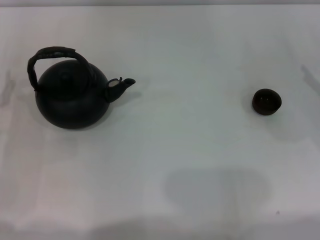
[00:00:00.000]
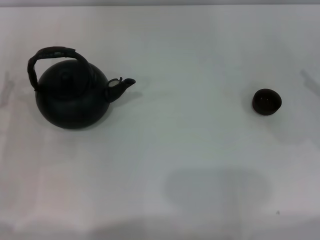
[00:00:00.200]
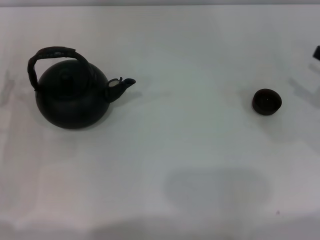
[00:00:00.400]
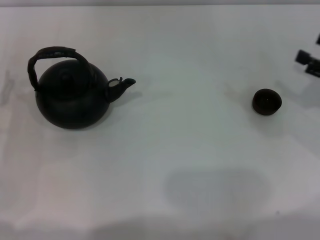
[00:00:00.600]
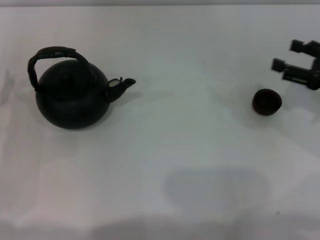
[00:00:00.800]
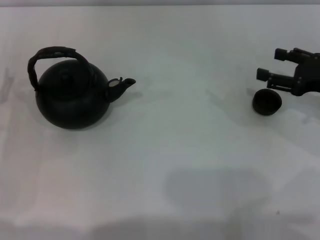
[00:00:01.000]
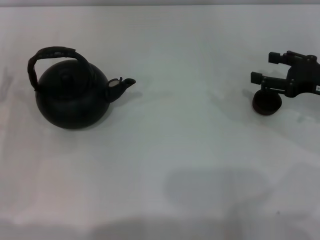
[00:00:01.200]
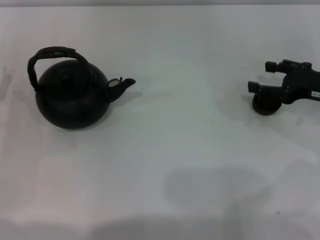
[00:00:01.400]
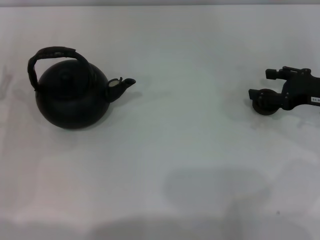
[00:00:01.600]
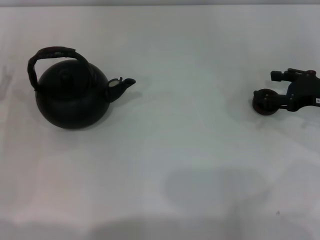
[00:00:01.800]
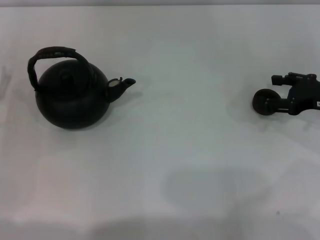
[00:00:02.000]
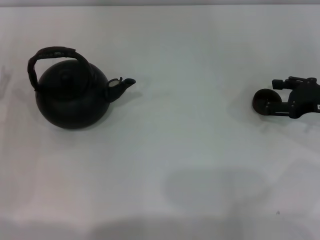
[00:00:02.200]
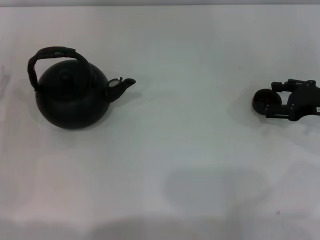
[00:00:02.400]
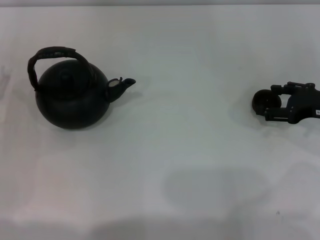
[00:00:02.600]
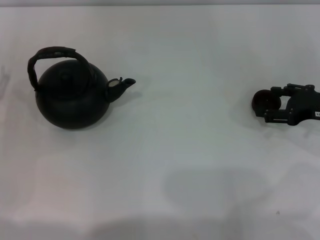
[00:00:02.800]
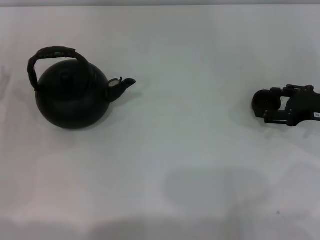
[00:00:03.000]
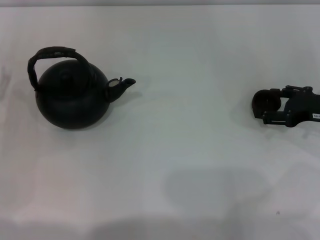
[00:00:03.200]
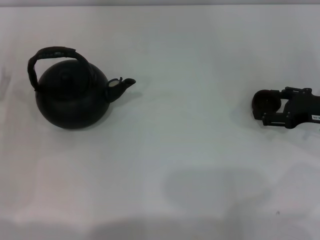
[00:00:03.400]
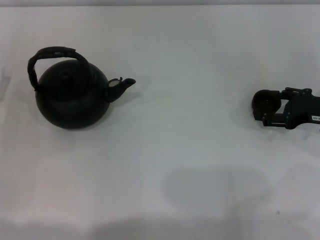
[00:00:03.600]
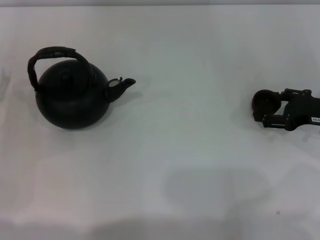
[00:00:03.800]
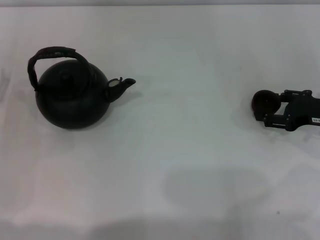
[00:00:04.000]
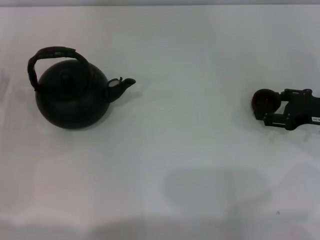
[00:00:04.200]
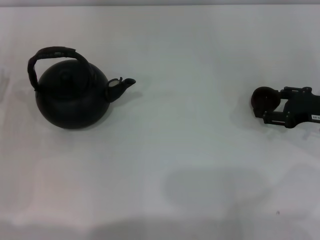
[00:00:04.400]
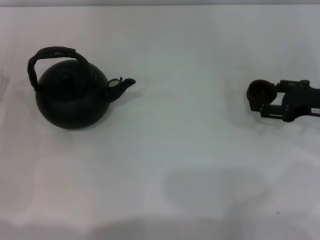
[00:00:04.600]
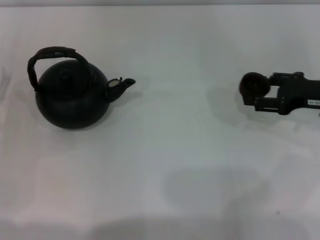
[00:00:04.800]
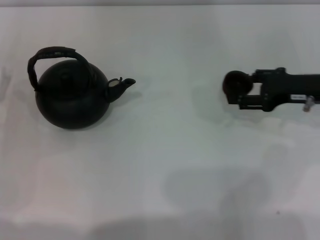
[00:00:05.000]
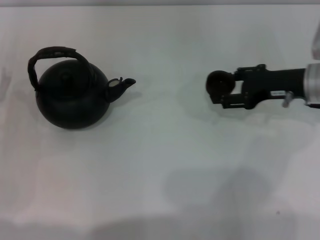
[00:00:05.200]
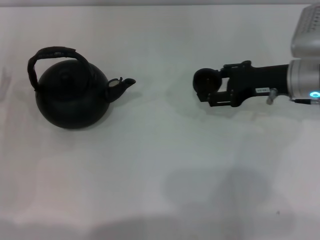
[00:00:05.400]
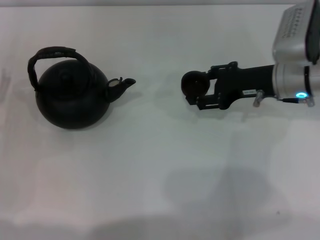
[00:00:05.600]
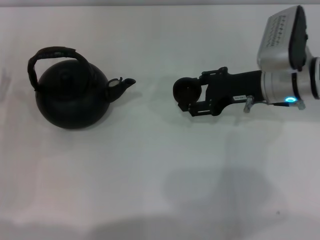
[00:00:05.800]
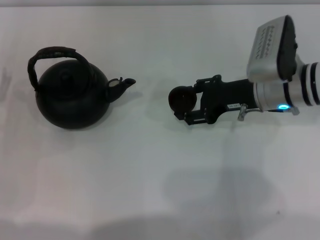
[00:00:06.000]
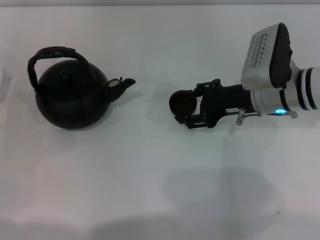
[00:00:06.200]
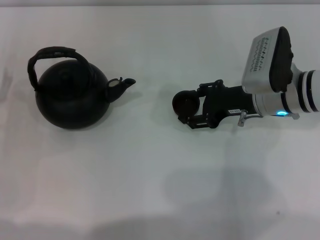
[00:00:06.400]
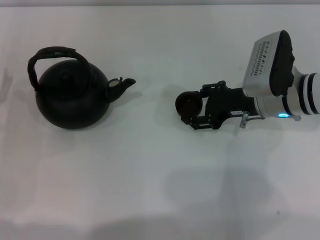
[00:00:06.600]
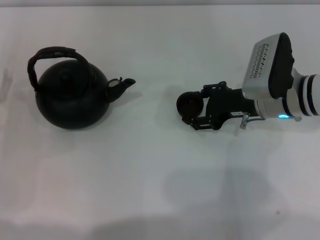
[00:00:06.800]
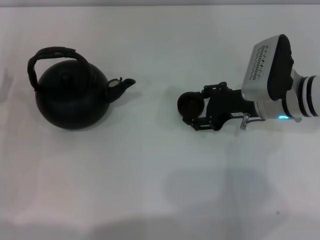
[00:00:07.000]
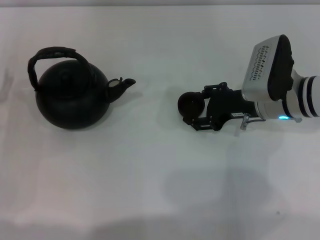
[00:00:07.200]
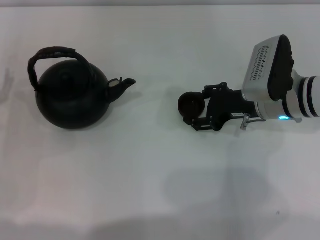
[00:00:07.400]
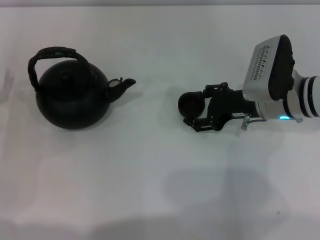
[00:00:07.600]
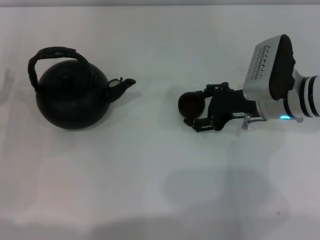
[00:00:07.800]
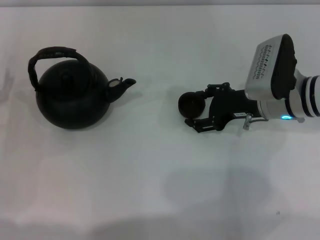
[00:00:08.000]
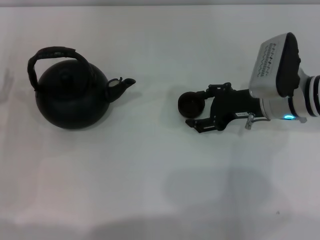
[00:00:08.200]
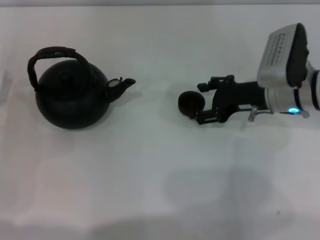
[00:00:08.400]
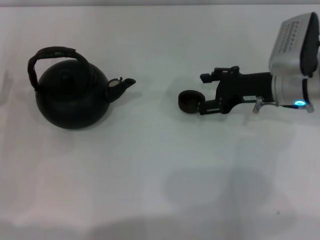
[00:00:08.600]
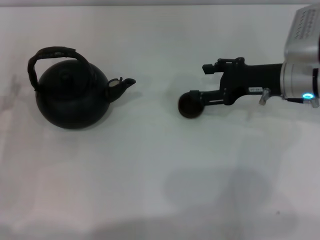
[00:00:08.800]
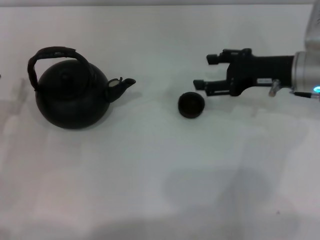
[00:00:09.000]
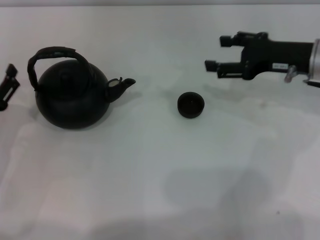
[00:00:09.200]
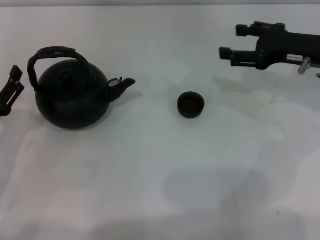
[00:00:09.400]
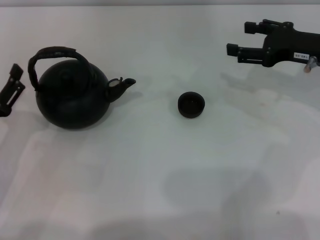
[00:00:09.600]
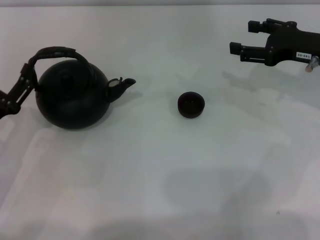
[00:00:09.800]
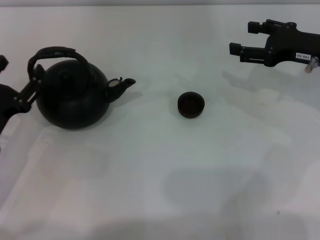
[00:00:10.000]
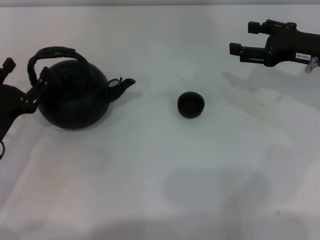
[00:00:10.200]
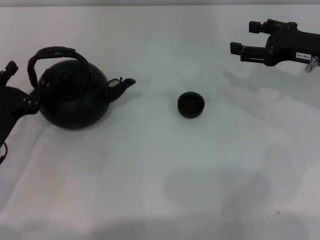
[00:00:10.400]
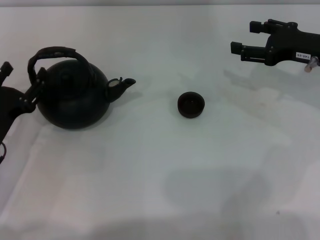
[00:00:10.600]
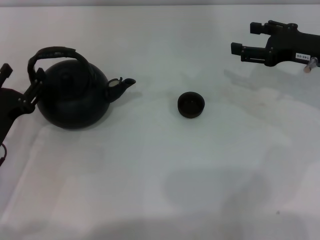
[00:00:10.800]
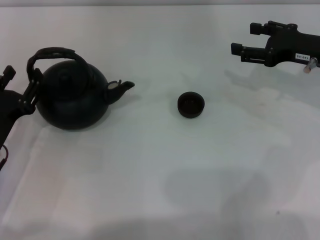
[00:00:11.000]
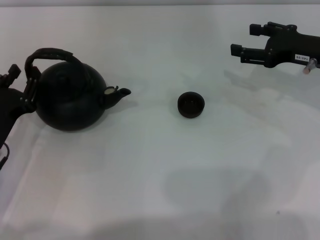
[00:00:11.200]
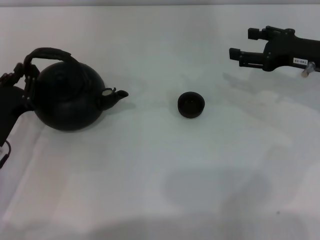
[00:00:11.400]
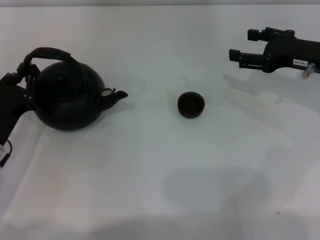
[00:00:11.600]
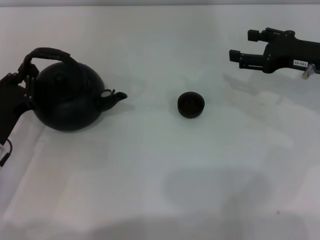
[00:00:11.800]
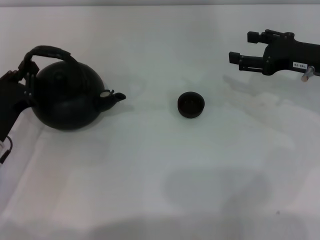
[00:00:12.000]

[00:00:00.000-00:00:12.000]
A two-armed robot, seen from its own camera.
Task of the whole recording: Grasp the handle of the teapot with one hand and pour tea into the teacup.
Step, 00:00:00.000 to 00:00:04.600: Pick up the teacup with the right gripper.
Step, 00:00:04.800 to 00:00:08.800: Place the teacup in the center of view with the right gripper.
00:00:00.000 to 00:00:01.600: The right gripper moves to the left, approximately 5 cm.
00:00:01.600 to 00:00:03.000: The grippers stay close to where they were, moving slightly.
00:00:03.000 to 00:00:04.400: The right gripper closes up.
00:00:04.400 to 00:00:06.000: The right gripper travels to the left by approximately 15 cm.
00:00:06.000 to 00:00:07.600: The right gripper opens.
00:00:07.600 to 00:00:09.000: The right gripper shifts by about 5 cm, and opens up.
00:00:09.000 to 00:00:10.400: The right gripper heads to the right, covering roughly 5 cm.
00:00:10.400 to 00:00:12.000: The left gripper closes its fingers.

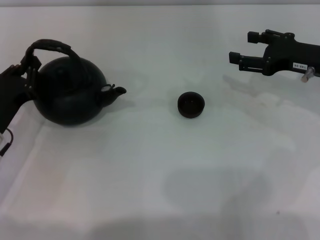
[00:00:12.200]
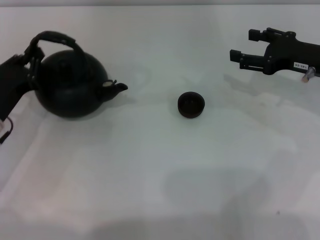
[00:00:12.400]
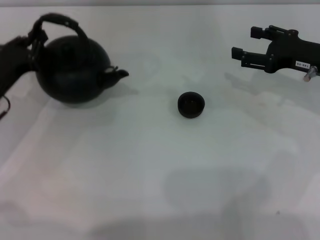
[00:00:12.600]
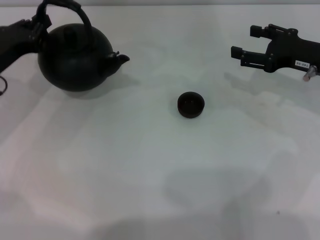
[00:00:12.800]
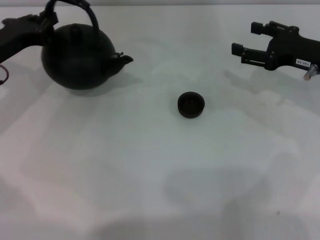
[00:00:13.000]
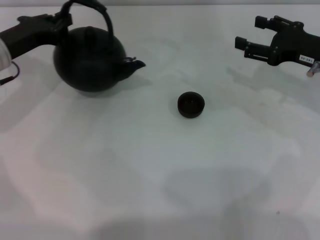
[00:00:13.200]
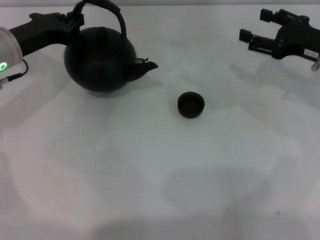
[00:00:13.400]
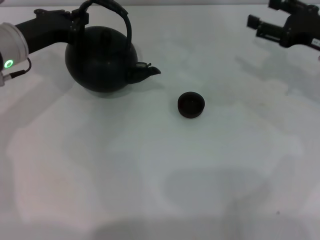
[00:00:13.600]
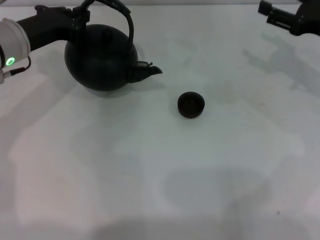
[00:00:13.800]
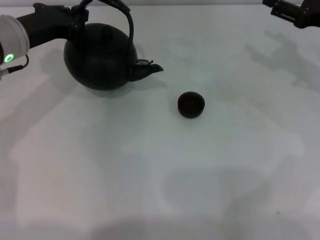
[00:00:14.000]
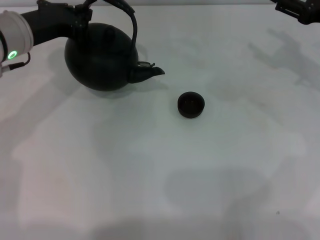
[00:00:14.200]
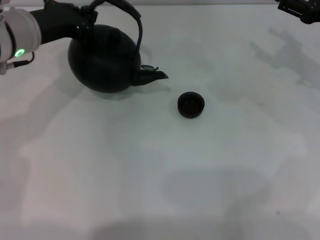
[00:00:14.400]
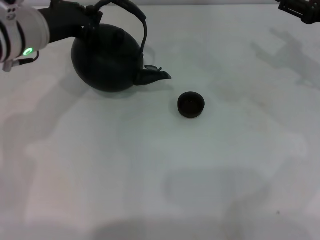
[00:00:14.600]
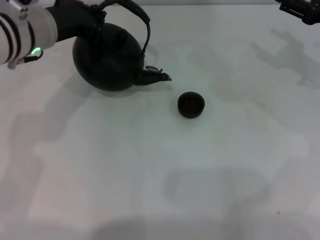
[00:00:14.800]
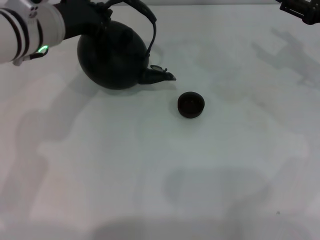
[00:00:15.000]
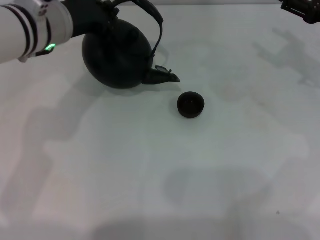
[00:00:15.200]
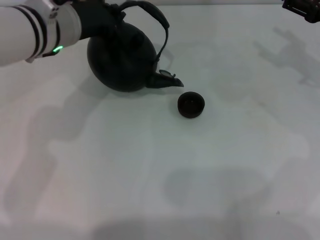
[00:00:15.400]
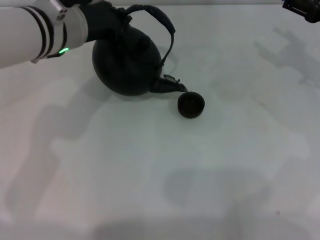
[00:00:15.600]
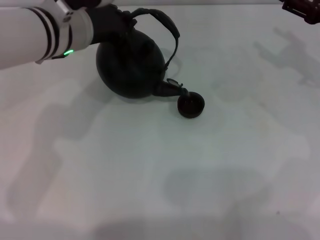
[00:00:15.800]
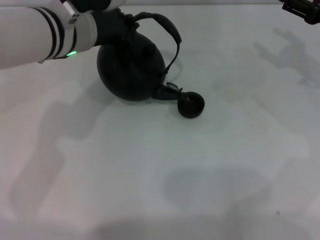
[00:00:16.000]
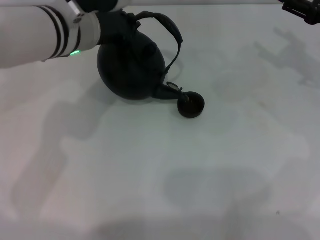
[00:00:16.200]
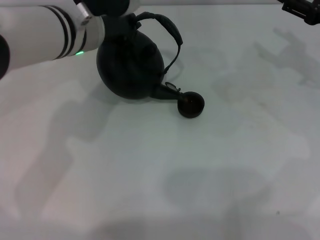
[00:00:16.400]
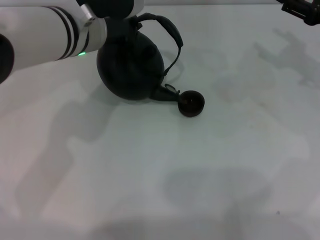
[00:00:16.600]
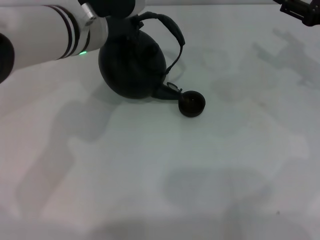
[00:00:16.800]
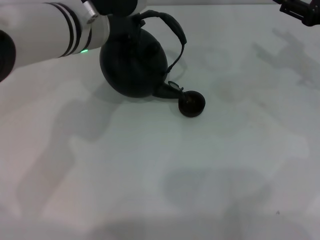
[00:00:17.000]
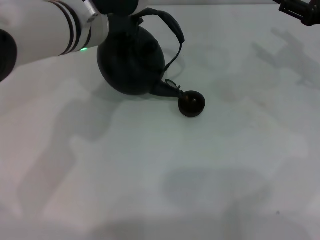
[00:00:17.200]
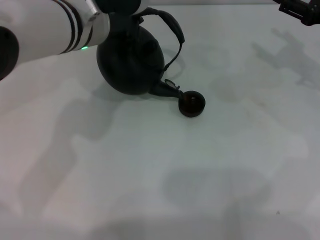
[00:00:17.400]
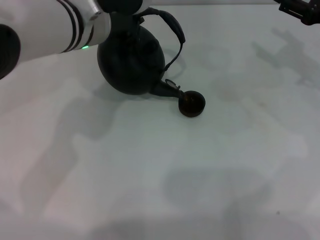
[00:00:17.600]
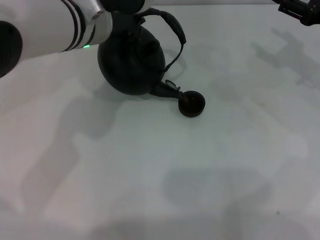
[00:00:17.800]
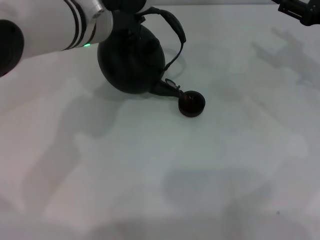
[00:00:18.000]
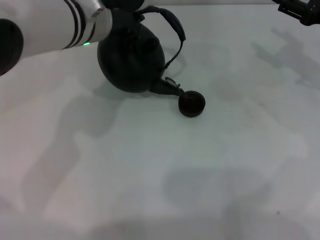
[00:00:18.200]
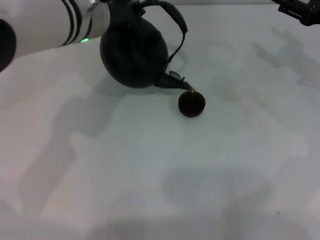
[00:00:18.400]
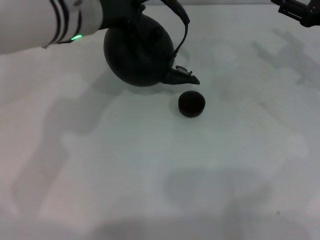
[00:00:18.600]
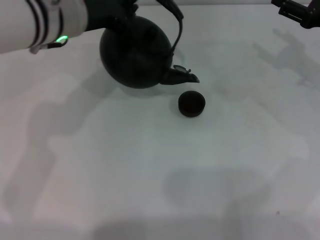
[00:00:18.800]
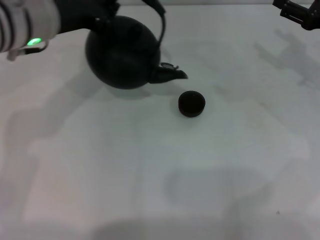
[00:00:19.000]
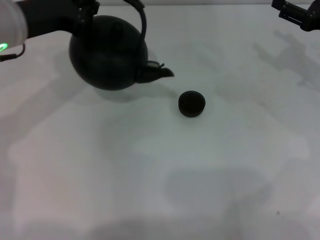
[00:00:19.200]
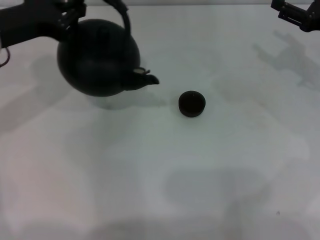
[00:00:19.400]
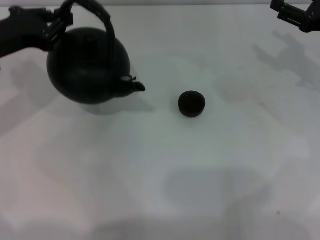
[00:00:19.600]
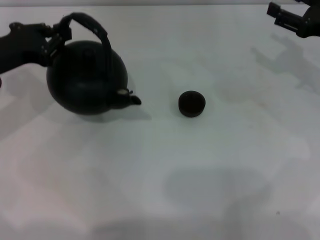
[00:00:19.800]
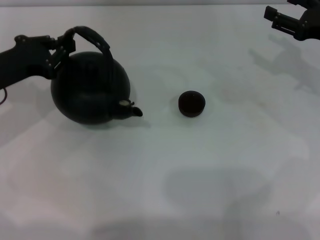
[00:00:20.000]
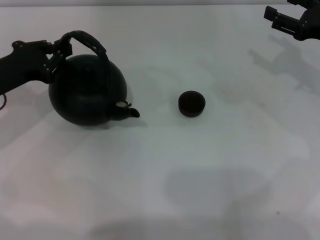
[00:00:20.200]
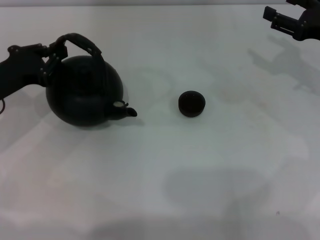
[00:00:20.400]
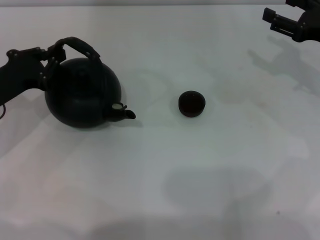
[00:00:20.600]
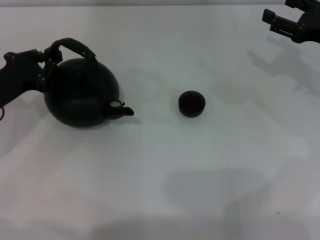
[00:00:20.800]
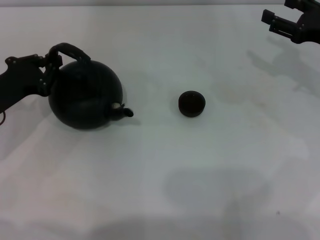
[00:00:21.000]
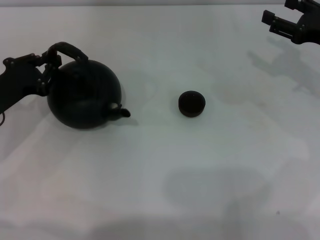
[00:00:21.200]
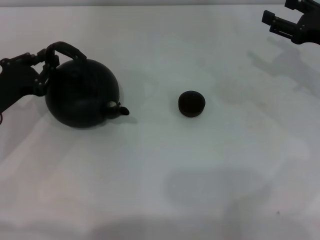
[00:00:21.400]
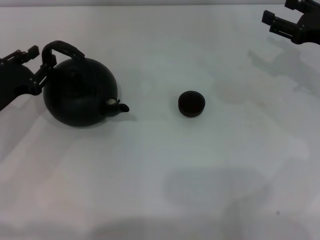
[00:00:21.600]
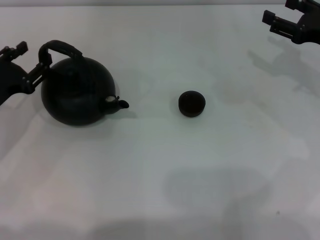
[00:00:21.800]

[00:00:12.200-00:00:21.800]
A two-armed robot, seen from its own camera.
Task of the whole recording: Grasp the handle of the teapot with one hand and pour tea into the teacup.
Step, 00:00:13.400 to 00:00:19.000: Pour tea into the teacup with the left gripper.
00:00:12.200 to 00:00:13.800: The left gripper moves forward and upward, roughly 15 cm.
00:00:13.800 to 00:00:15.400: The left gripper goes about 10 cm to the right.
00:00:15.400 to 00:00:18.600: The grippers stay close to where they were, moving slightly.
00:00:18.600 to 00:00:20.200: The left gripper goes about 20 cm to the left and downward.
00:00:20.200 to 00:00:21.800: The left gripper moves roughly 5 cm, and opens.
